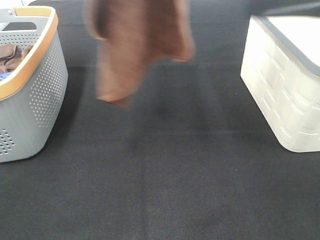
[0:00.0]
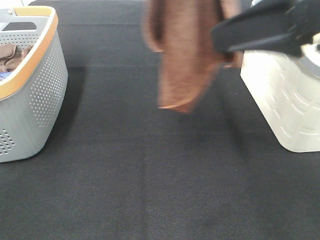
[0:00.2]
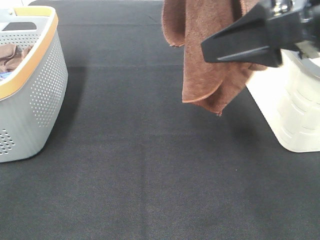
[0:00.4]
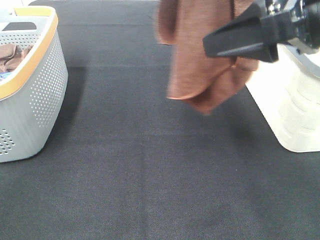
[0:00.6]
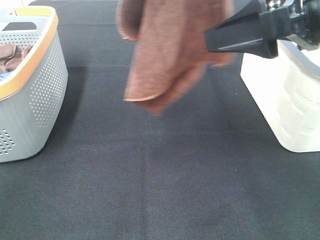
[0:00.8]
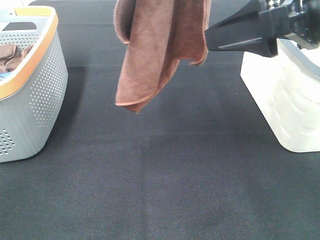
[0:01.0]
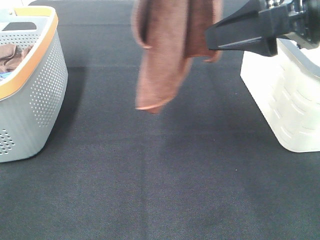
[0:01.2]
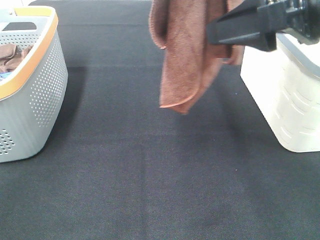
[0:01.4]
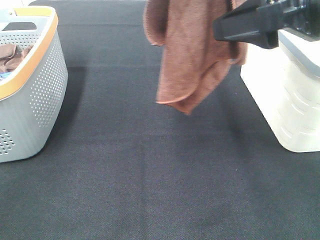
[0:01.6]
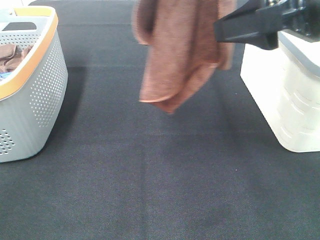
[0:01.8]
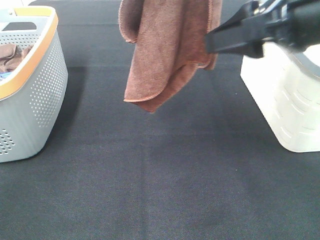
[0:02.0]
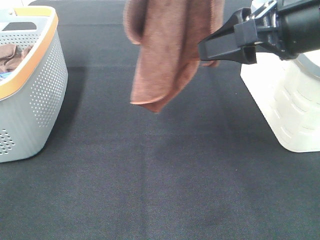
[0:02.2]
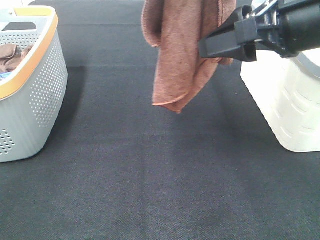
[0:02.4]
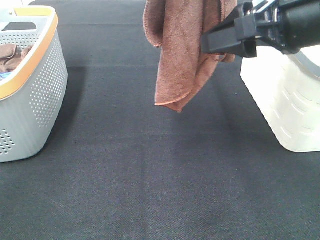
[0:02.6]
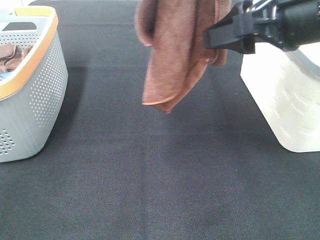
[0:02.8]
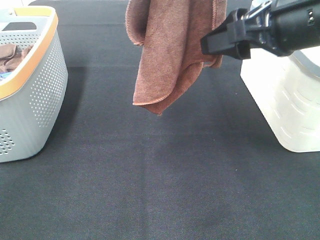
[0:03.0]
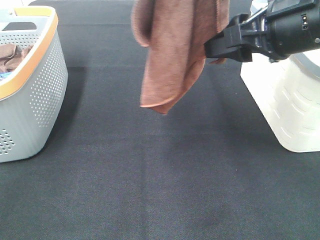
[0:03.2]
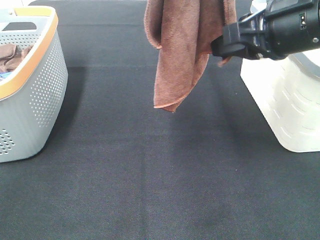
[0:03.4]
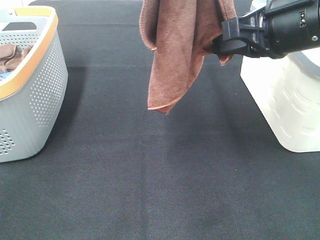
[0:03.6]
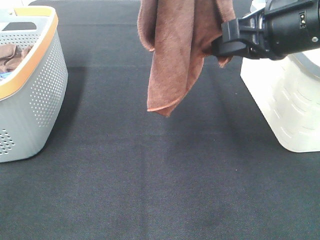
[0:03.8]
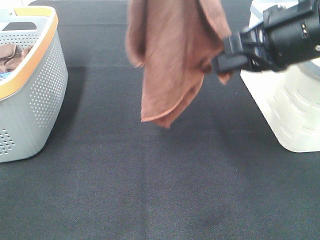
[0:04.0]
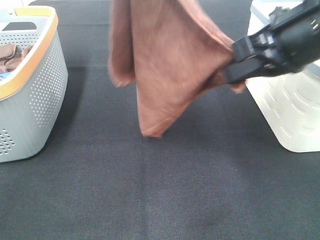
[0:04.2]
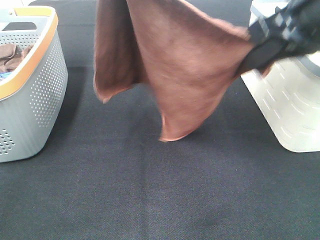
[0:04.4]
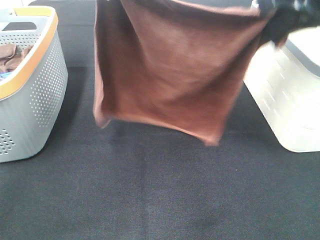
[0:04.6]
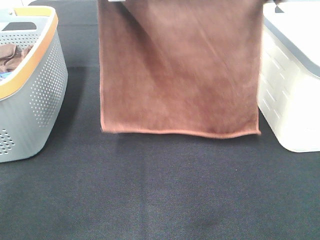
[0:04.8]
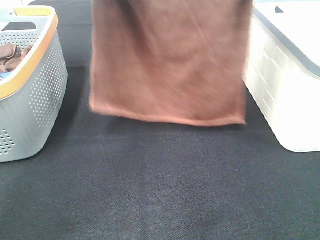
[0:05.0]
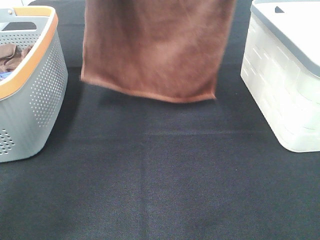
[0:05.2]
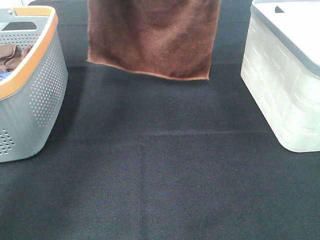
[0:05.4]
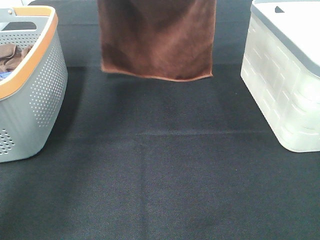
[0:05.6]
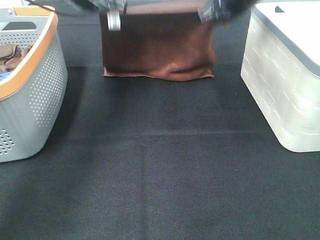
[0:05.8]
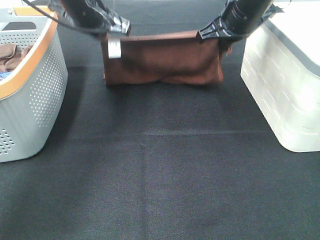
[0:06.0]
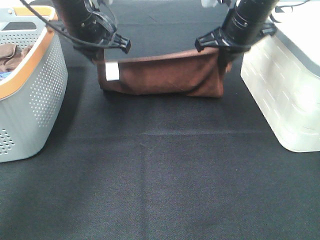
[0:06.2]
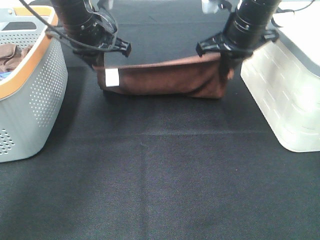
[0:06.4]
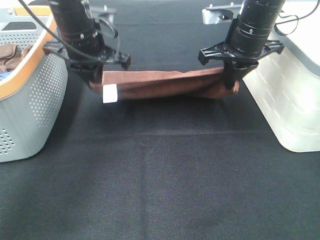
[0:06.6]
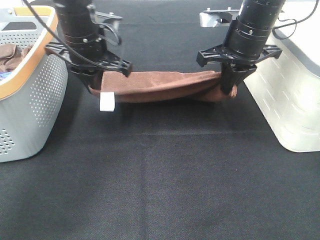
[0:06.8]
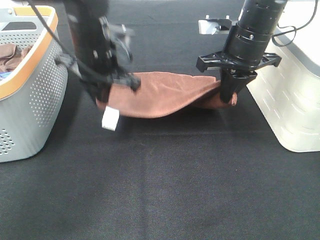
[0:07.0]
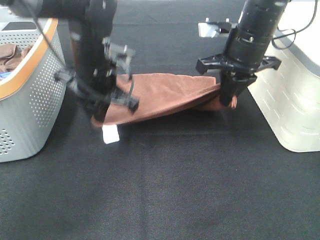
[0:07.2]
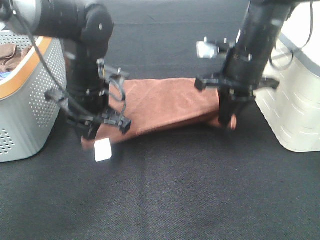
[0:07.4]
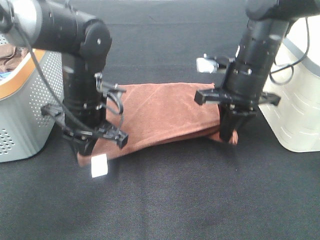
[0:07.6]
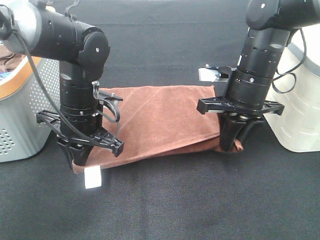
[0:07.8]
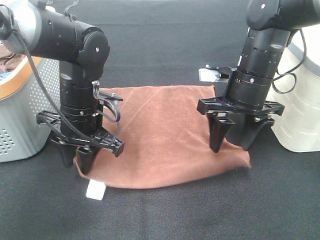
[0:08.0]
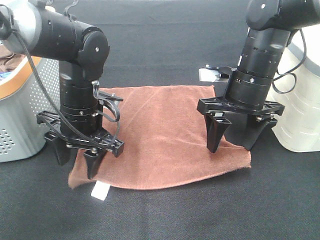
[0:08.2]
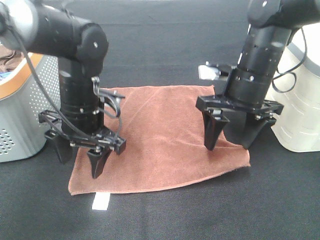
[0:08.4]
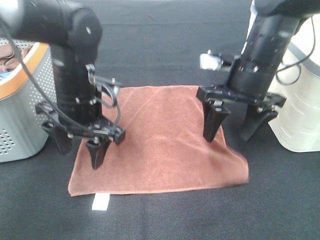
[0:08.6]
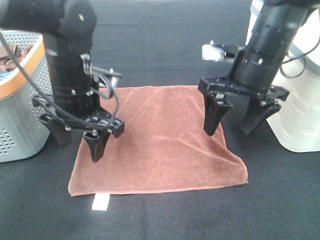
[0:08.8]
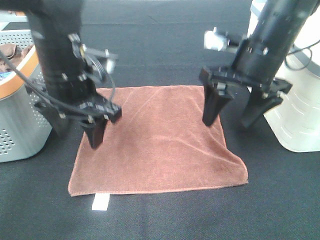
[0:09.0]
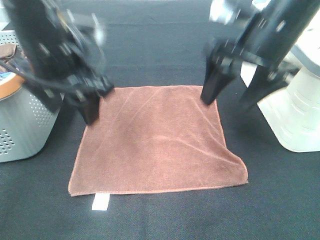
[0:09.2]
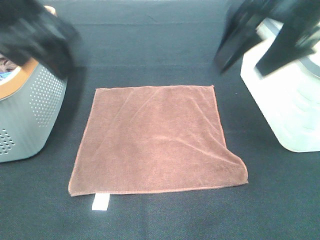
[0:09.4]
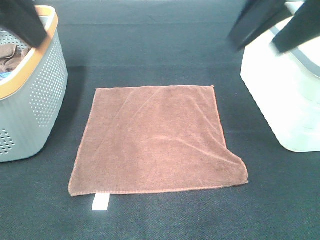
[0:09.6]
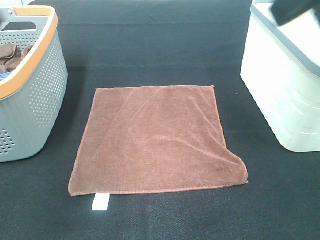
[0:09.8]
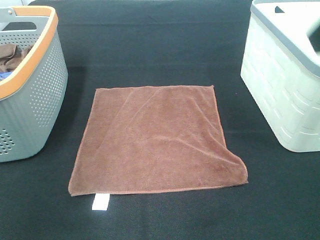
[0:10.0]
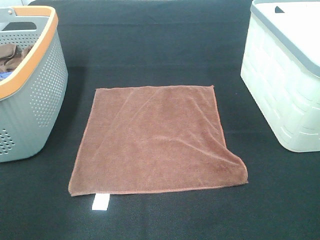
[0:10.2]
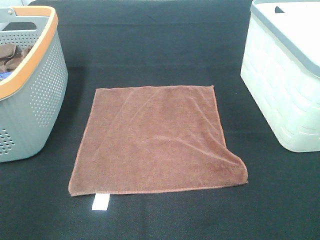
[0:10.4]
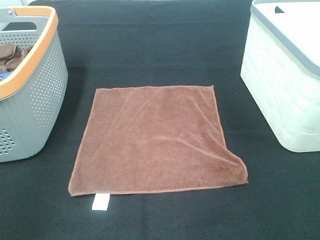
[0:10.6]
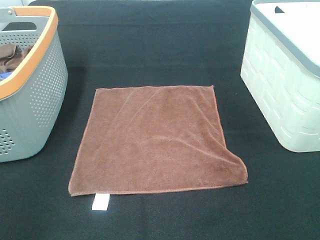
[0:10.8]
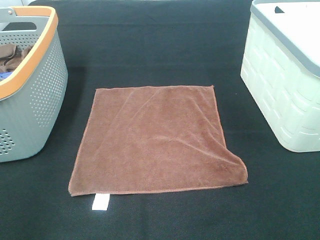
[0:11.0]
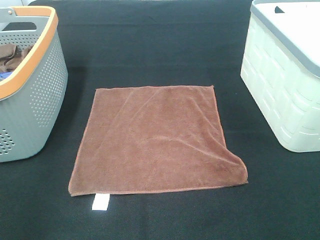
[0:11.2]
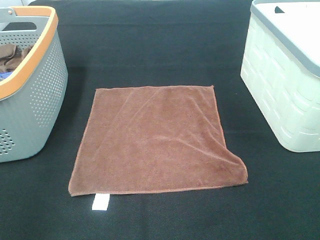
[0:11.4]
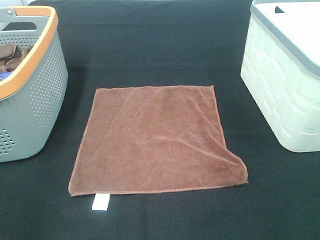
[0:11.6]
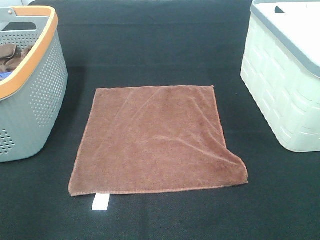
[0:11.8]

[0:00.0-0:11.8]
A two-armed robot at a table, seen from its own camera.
Task of the whole recording: Remove the towel and place it.
Step, 0:02.0 to 0:04.6: Left hand: spread the brown towel flat on the table.
Step, 0:02.0 to 0:04.6: Right hand: spread the brown towel flat on the table.
0:00.0 to 0:01.4: The right gripper changes place by roughly 5 cm.
0:01.4 to 0:03.0: The right gripper shifts by some 5 cm.
0:03.0 to 0:04.4: The left gripper goes approximately 5 cm downward, while the right gripper closes.
0:04.4 to 0:06.0: The right gripper heads forward and downward, covering approximately 20 cm, while the left gripper heads downward and forward, covering roughly 25 cm.
0:06.0 to 0:07.4: The right gripper travels backward and downward by roughly 10 cm. Meanwhile the left gripper shifts approximately 15 cm backward and downward.
0:07.4 to 0:08.8: The right gripper opens. The left gripper opens.
0:08.8 to 0:10.4: The left gripper goes some 30 cm backward, to the left and upward. Meanwhile the right gripper is displaced backward, to the right and upward by roughly 30 cm.

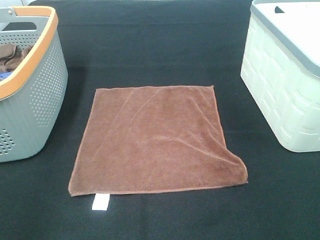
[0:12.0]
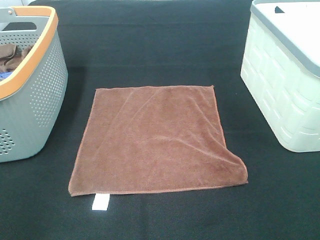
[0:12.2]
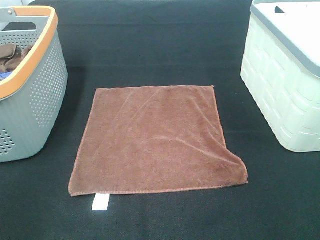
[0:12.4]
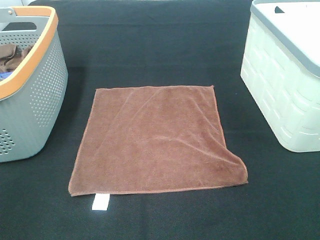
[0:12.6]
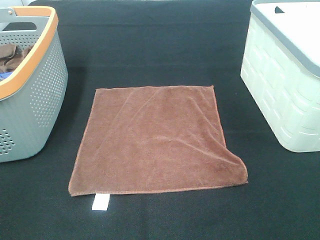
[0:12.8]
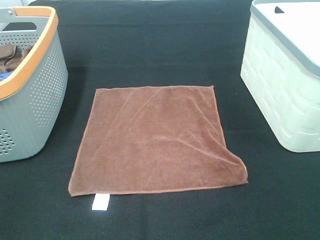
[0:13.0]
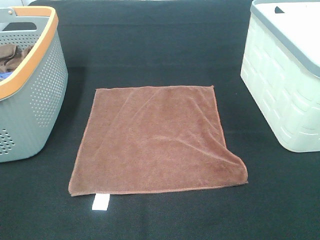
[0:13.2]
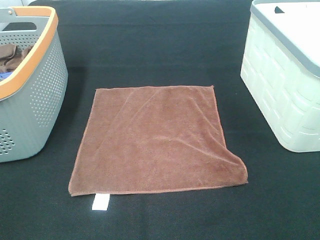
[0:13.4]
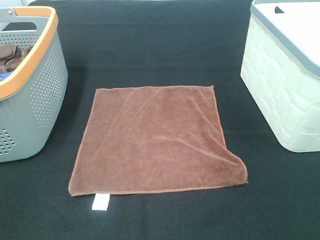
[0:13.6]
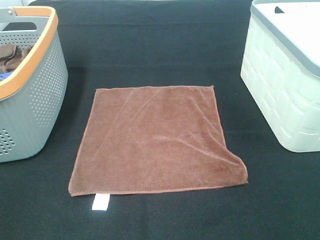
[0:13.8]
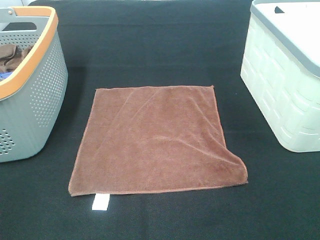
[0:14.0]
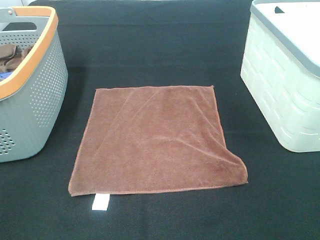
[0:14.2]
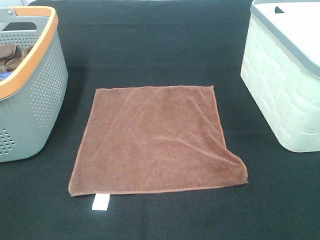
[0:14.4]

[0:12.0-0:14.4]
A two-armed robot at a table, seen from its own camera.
Task of the whole recording: Remove the towel and place it.
0:13.2 to 0:14.4: The two grippers keep their place.

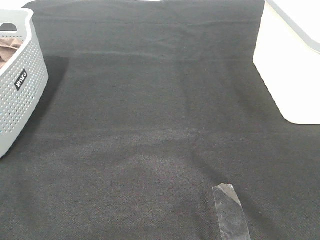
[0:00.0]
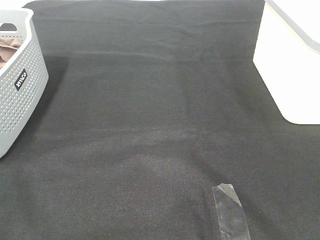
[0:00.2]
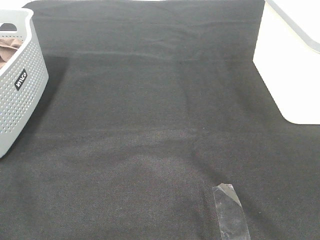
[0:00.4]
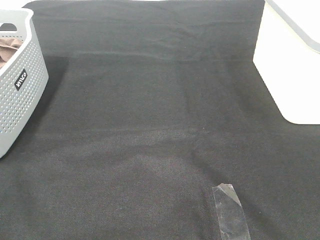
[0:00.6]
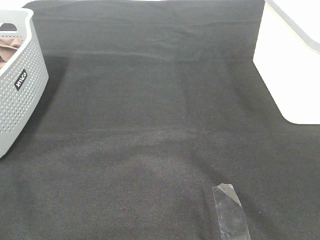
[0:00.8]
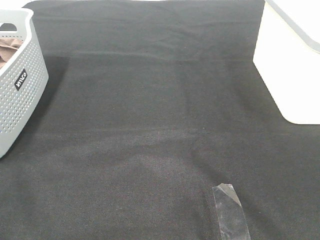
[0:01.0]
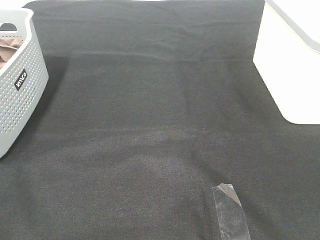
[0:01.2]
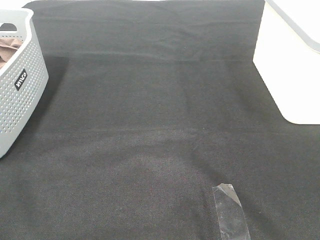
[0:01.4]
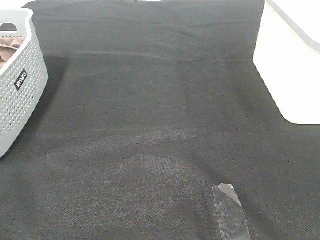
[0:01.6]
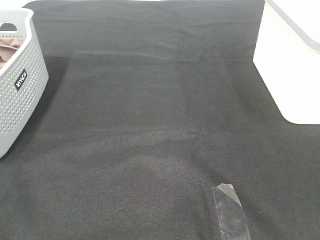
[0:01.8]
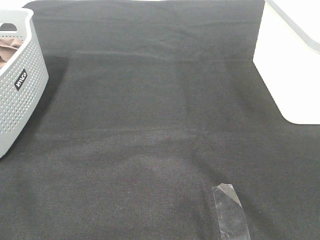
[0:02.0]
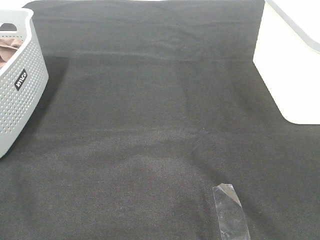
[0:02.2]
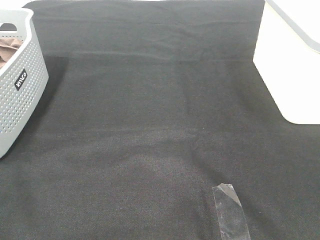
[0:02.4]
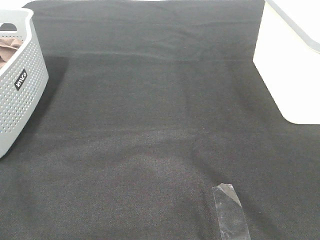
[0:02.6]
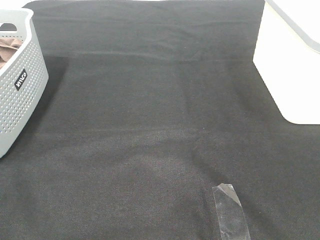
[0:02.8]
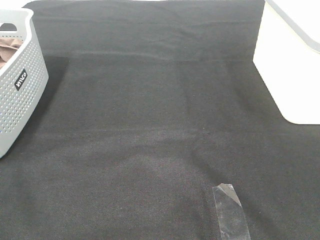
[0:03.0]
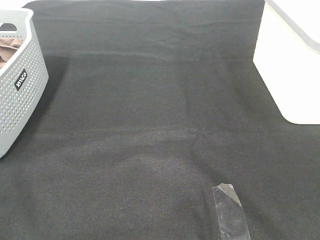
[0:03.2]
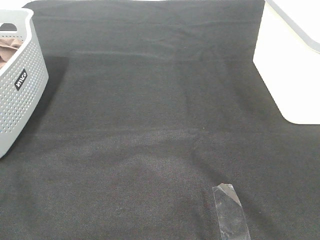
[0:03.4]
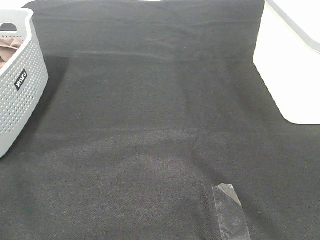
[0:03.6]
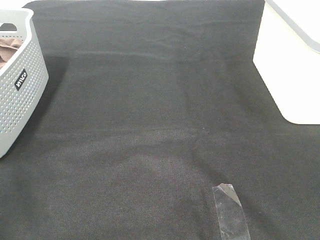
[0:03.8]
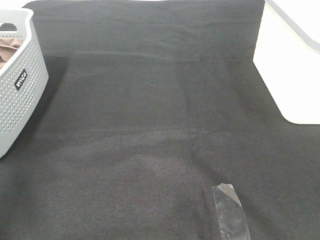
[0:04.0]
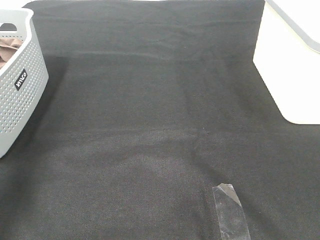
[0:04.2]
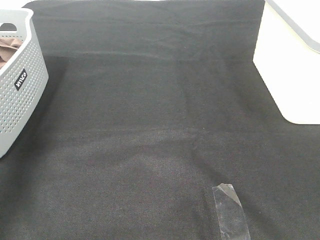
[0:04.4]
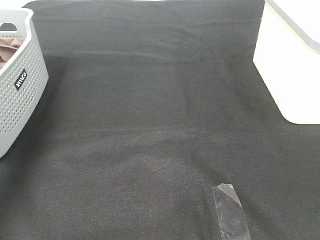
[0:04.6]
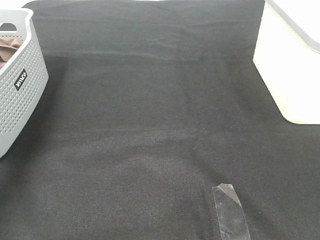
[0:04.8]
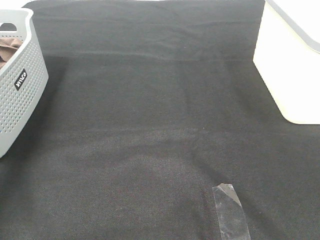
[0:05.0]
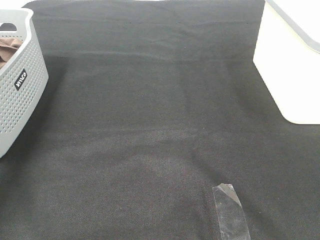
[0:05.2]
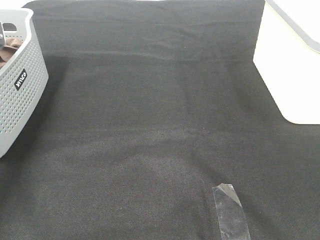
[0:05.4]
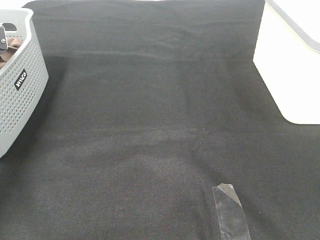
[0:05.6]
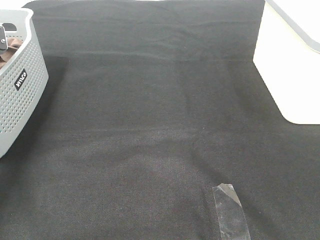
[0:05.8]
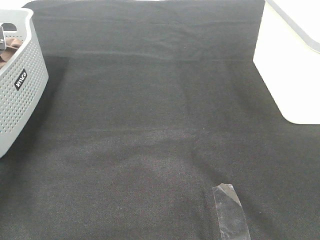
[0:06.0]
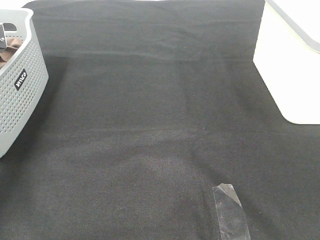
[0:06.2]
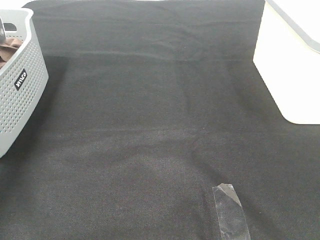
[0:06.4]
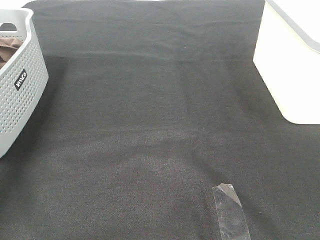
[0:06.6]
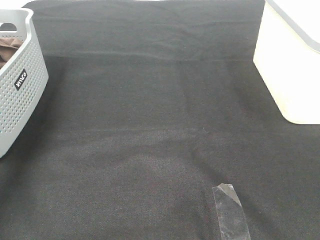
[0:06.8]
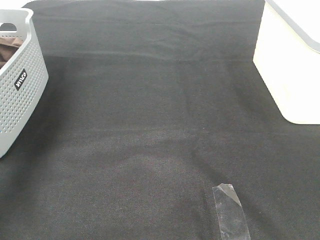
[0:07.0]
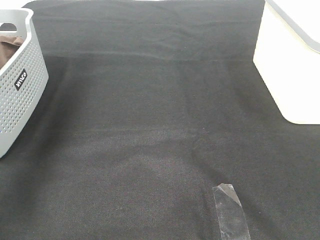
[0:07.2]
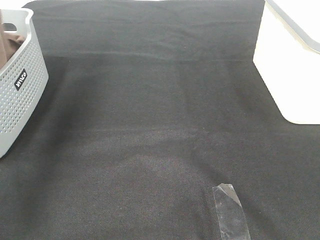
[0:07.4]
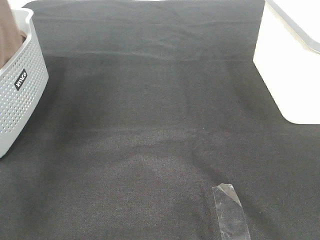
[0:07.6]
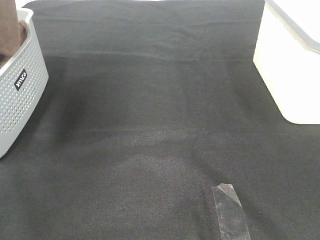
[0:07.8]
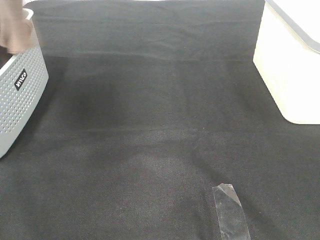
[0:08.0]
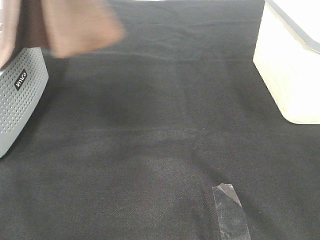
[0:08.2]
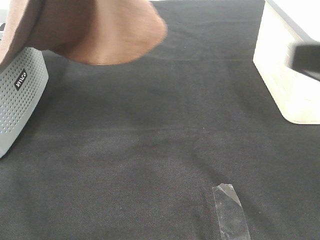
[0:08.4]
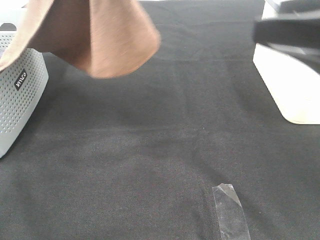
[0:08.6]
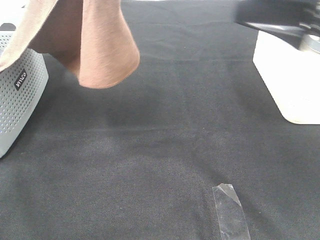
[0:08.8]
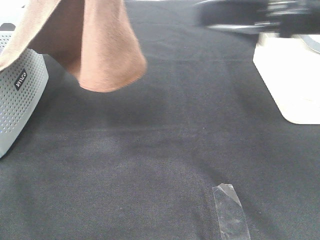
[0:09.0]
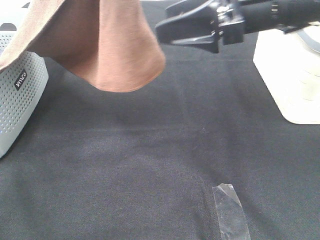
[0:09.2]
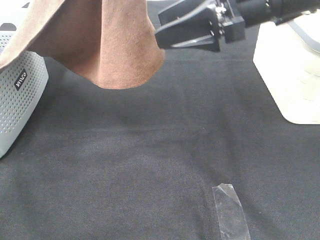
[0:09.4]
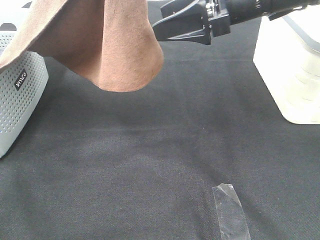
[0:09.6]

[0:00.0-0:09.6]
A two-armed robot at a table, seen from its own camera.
Task of the whole recording: Remove the towel and place it.
0:00.0 to 0:03.2: Both grippers stay put.
0:03.2 to 0:04.8: The left gripper shifts some 40 cm forward.
0:06.4 to 0:08.0: The left gripper moves upward, to the right and backward, roughly 40 cm.
0:08.0 to 0:09.6: The right gripper heads forward and to the left, covering approximately 35 cm; the left gripper travels to the right by about 10 cm.
